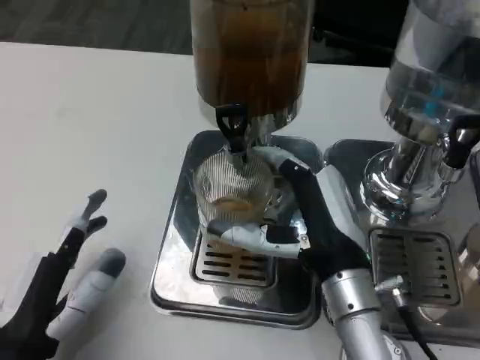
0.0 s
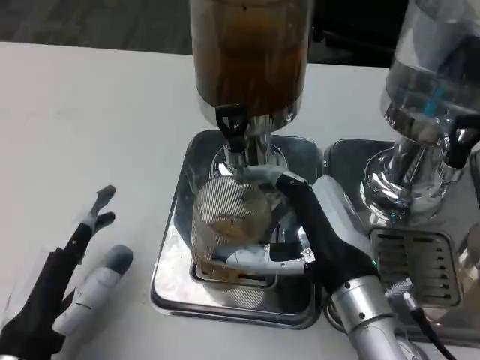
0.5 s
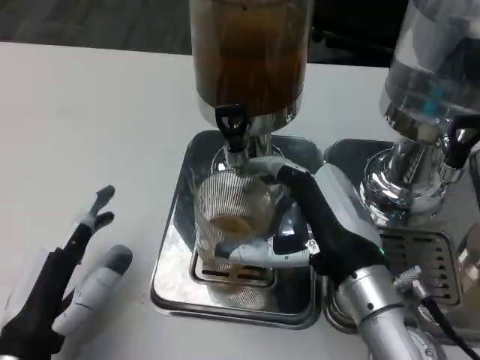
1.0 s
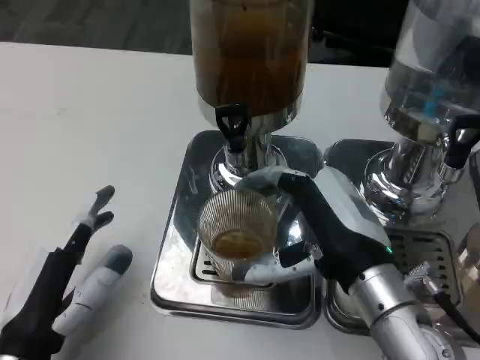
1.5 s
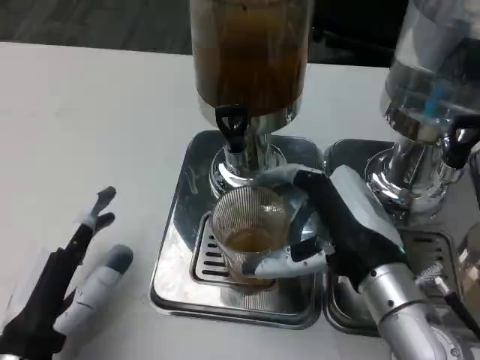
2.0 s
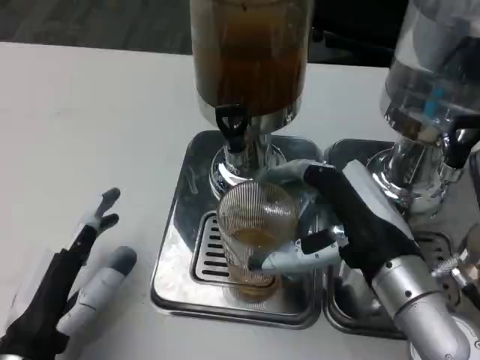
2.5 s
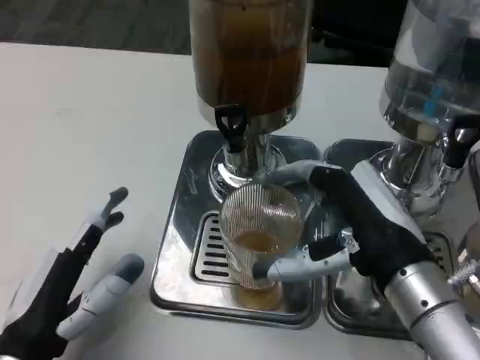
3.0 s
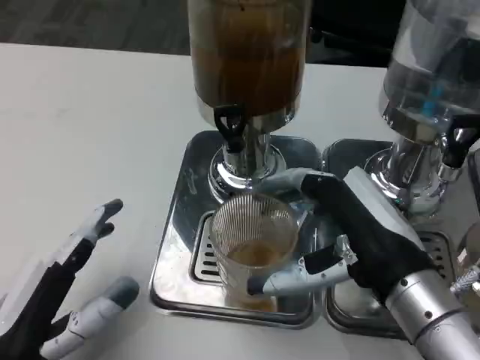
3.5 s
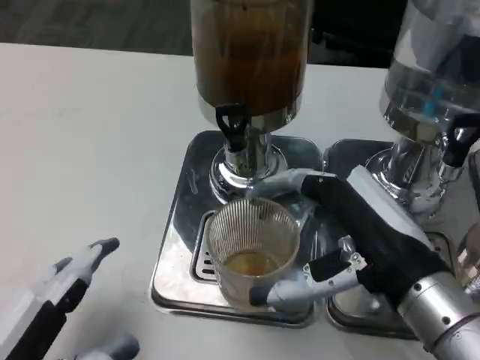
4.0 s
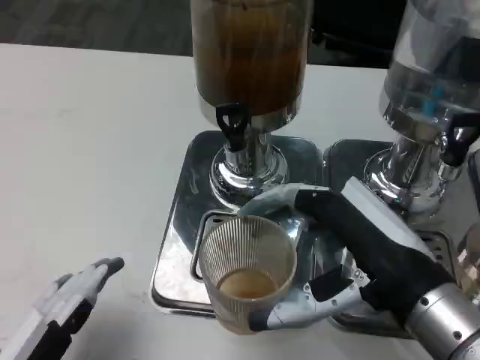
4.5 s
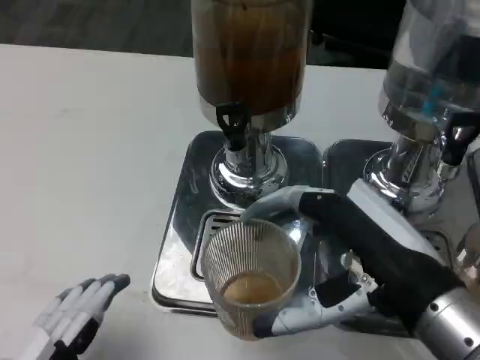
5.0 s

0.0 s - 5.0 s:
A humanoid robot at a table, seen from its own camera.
Task of the whole recording: Grasp the cup under the faucet to collect the drink, then remove the cup.
0.0 s - 2.5 s: The right hand shifts approximately 5 cm upward.
2.5 s - 5.0 s: The left hand heads backward, covering roughly 10 cm, while the right hand is displaced backward by about 5 cm.

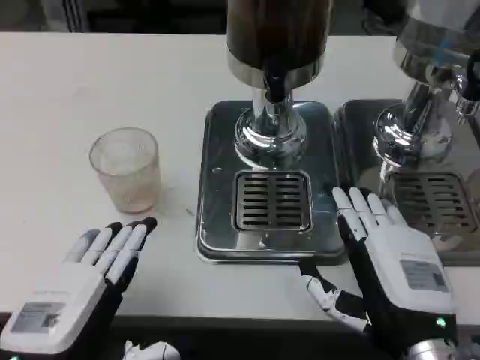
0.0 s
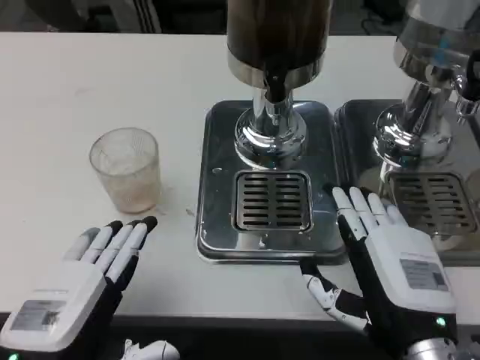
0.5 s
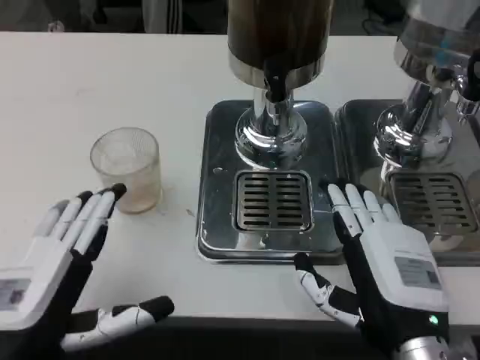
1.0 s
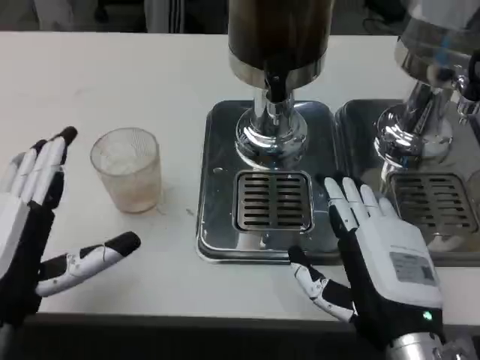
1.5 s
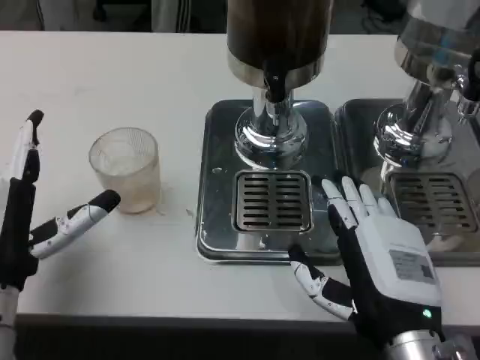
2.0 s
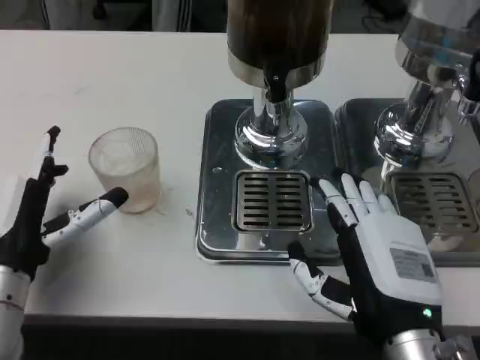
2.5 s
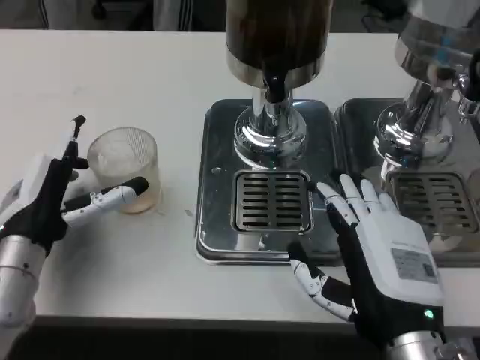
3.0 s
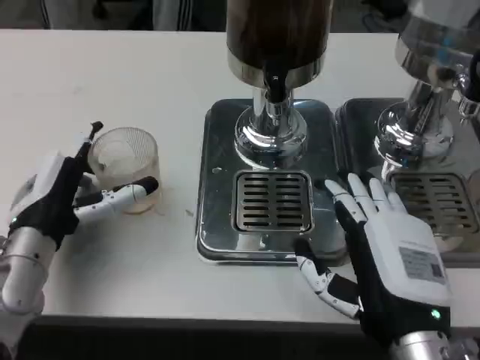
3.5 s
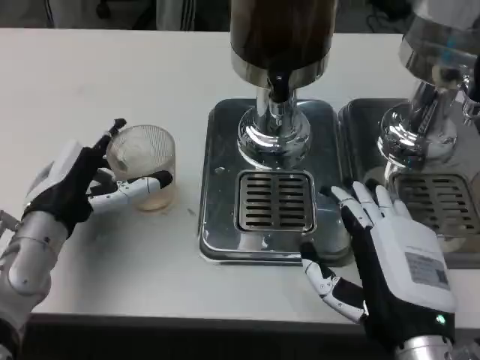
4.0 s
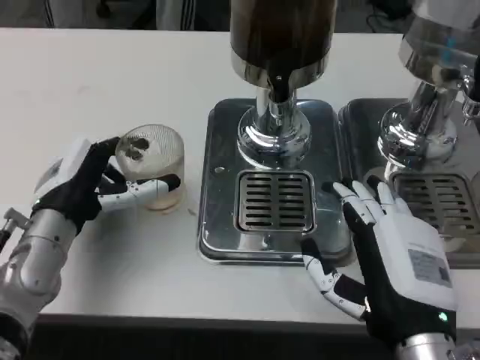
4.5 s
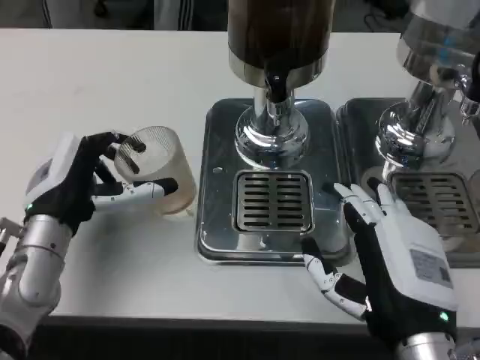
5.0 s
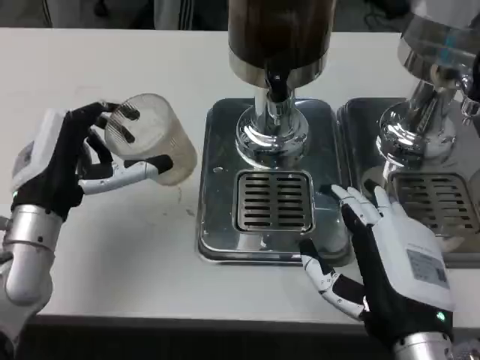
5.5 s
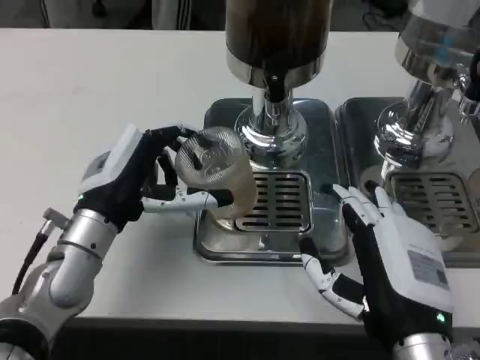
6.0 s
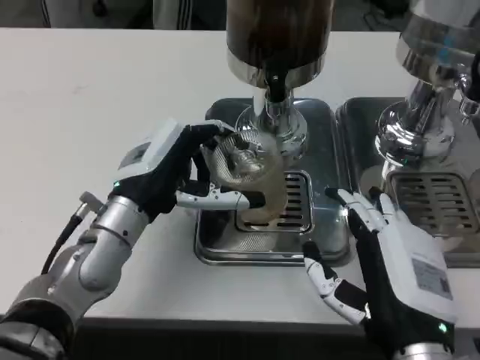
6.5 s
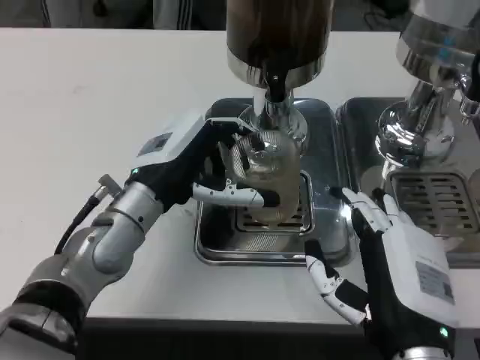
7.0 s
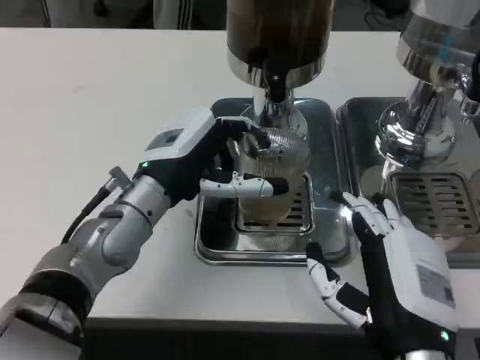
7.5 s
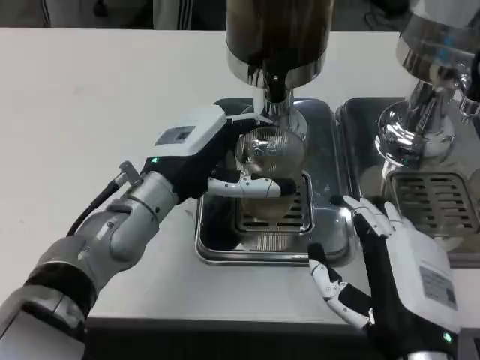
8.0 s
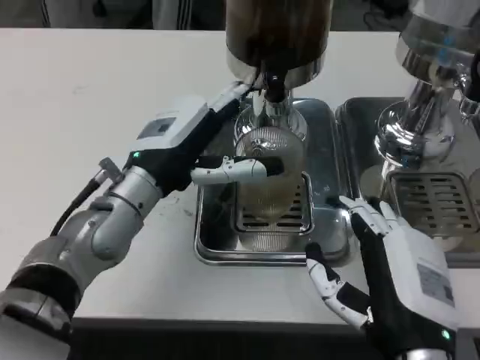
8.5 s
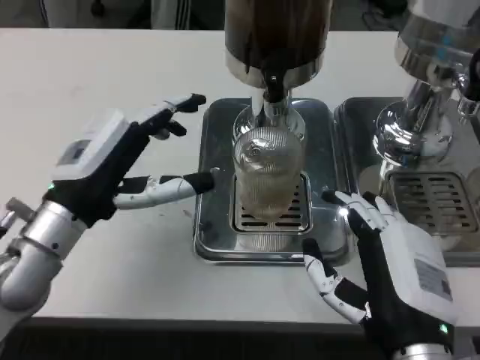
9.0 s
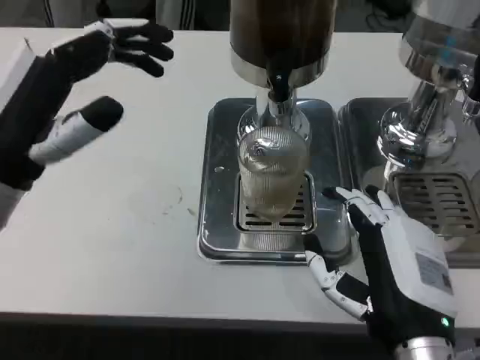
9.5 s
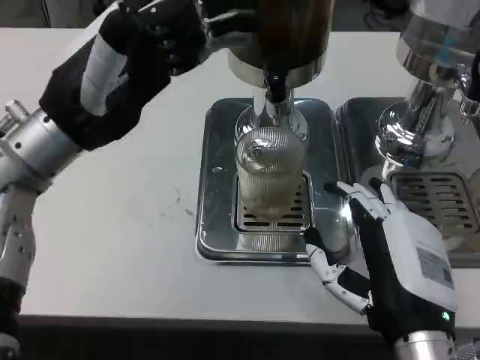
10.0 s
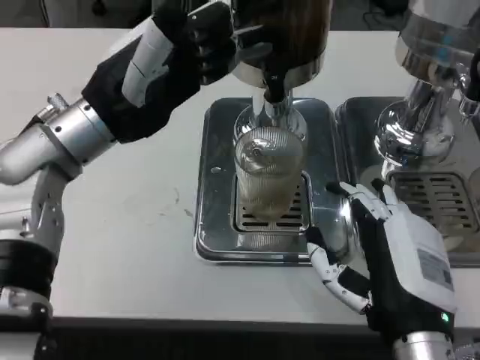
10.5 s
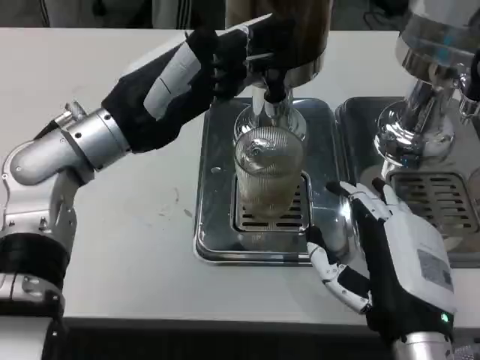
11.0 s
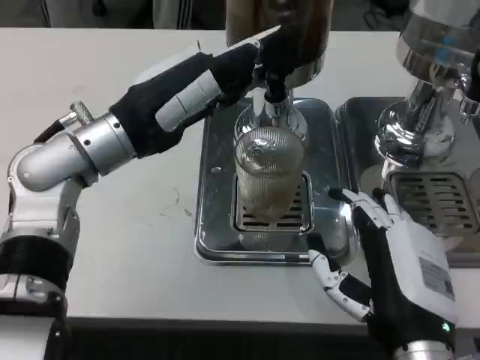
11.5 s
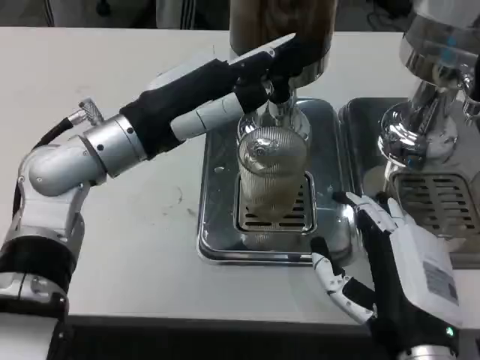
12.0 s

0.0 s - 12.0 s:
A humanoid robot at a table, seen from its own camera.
Task of the whole recording: Grasp the cup under the faucet to collect the drink, then remove the cup.
0.0 s - 2.0 s: The left hand is displaced forward by roughly 10 cm.
2.0 s - 4.0 s: The left hand heads forward, covering roughly 10 cm.
6.0 s - 8.0 s: The left hand travels to the right by approximately 5 cm.
8.0 s - 10.0 s: The left hand goes some 10 cm upward and to the left.

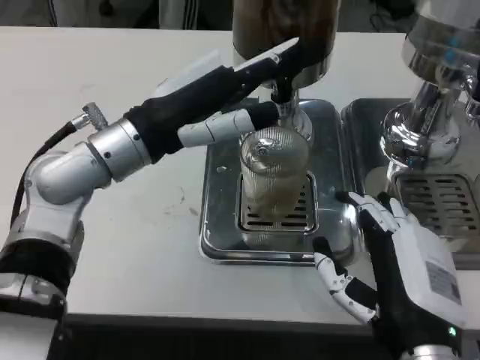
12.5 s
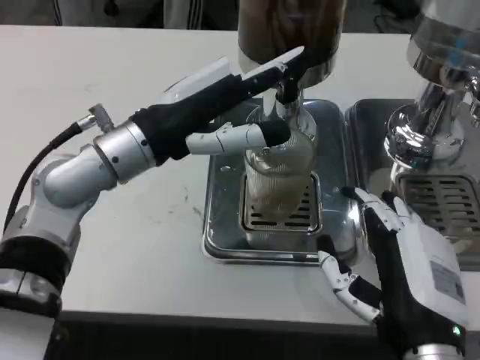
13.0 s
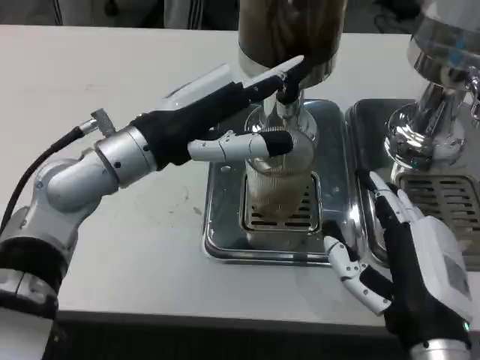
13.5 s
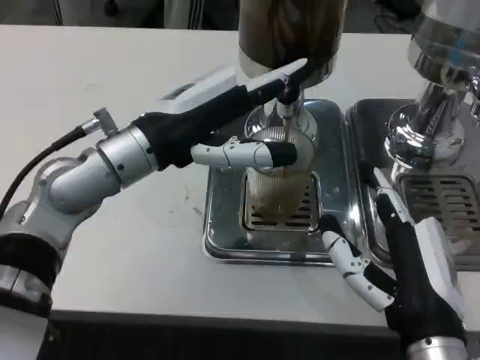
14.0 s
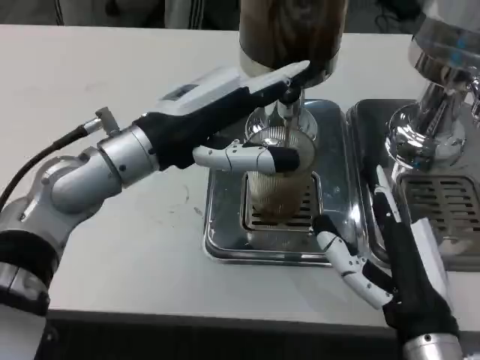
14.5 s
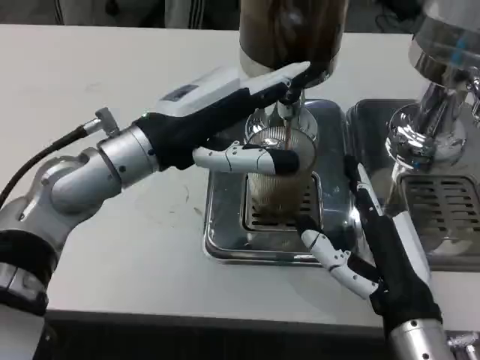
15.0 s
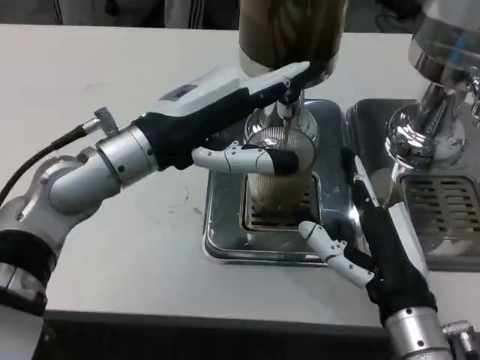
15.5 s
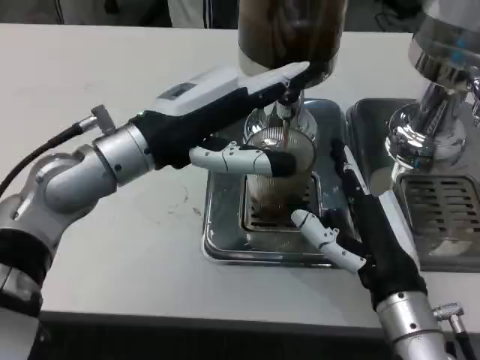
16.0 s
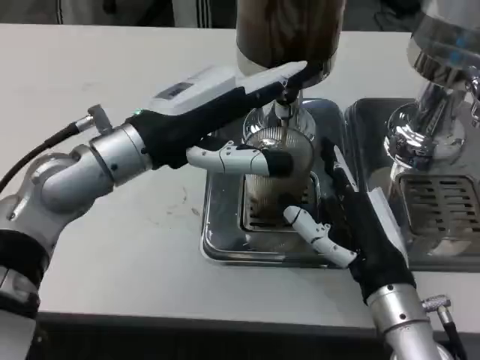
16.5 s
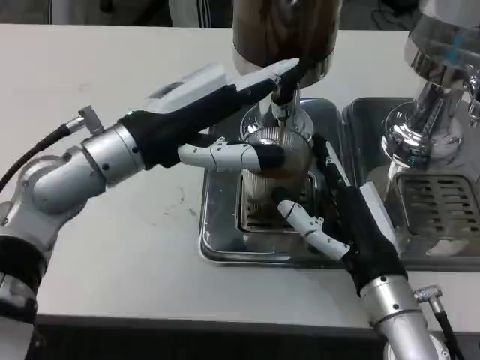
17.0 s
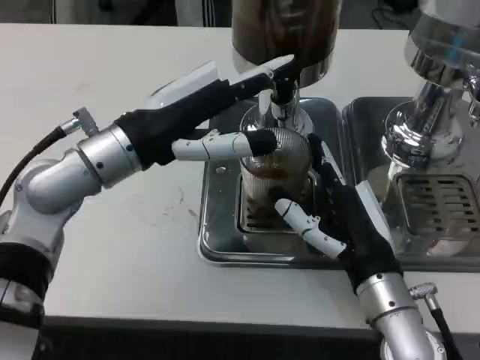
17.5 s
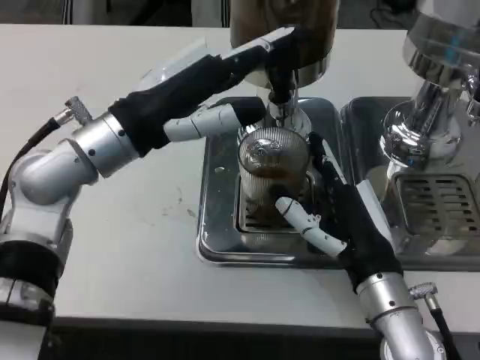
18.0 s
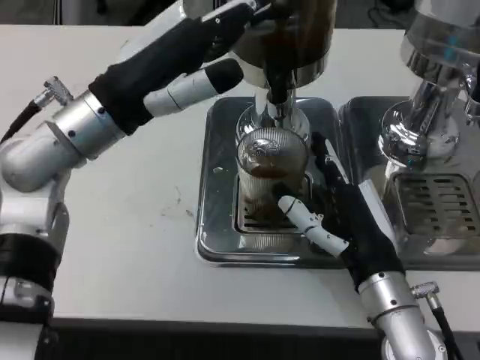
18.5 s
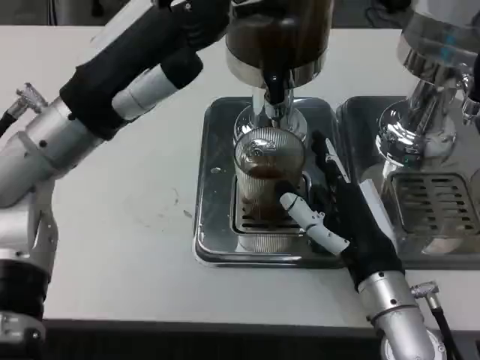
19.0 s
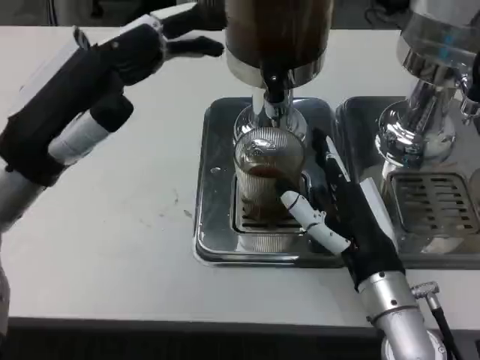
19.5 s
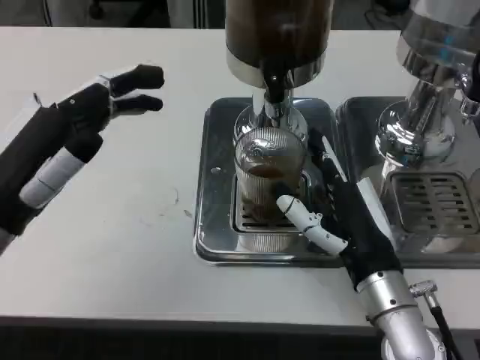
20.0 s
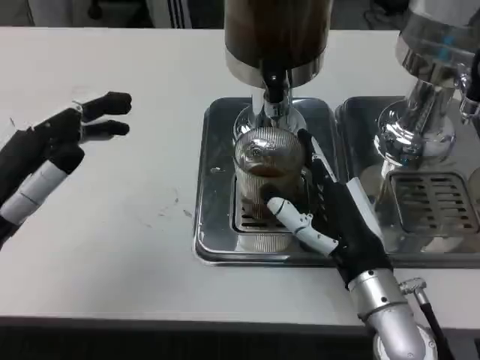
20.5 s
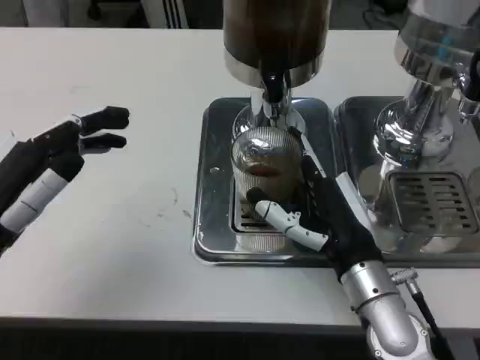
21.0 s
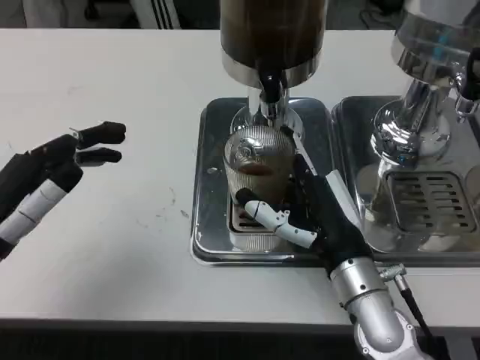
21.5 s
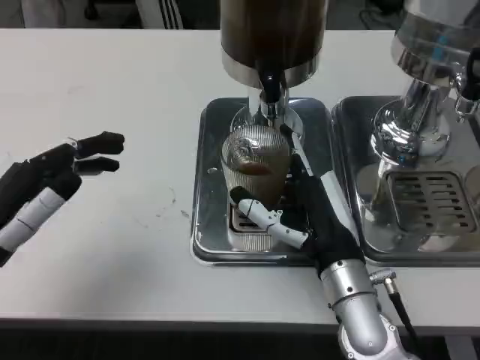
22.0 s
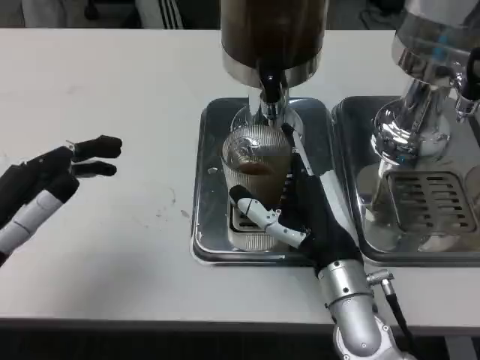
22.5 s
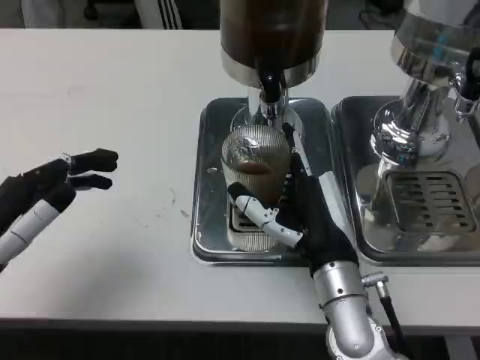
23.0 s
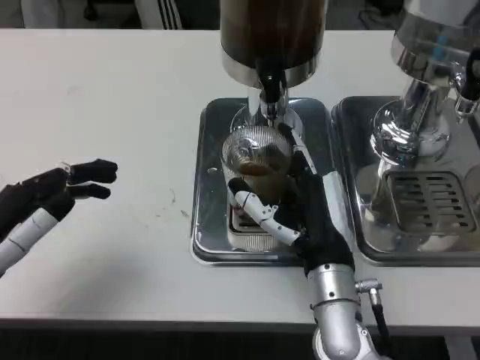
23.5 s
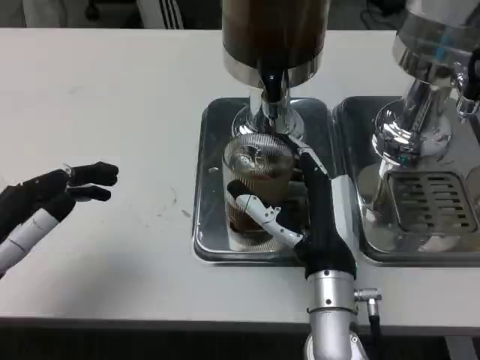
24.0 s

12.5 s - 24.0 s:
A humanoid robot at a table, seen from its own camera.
Task of the whole recording: Grasp the cup under the faucet to collect the drink, then remove the cup.
14.5 s - 16.5 s: The right hand heads forward, covering about 5 cm.
18.5 s - 20.0 s: The left hand moves backward, to the left and downward, some 15 cm.
22.0 s - 24.0 s: The hands move only a little.
